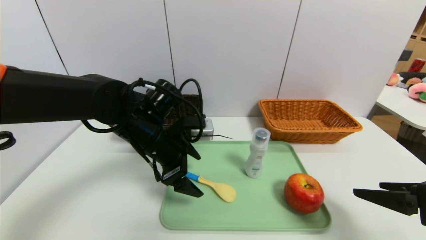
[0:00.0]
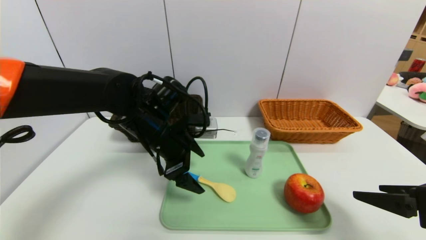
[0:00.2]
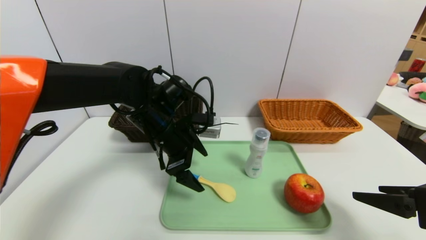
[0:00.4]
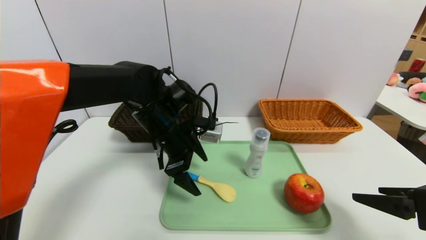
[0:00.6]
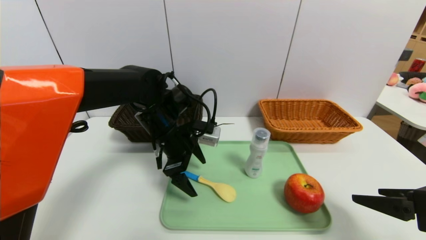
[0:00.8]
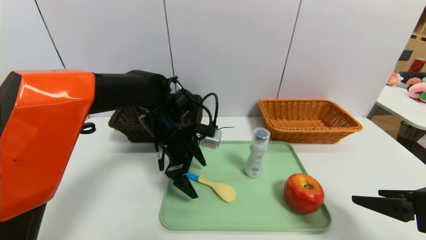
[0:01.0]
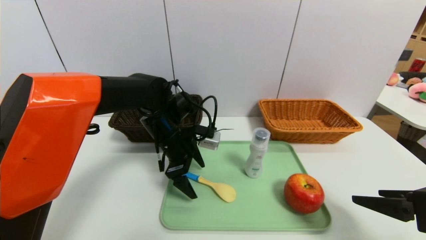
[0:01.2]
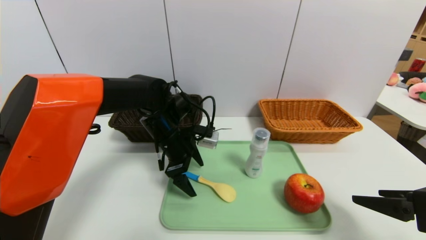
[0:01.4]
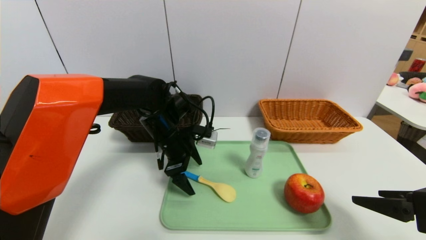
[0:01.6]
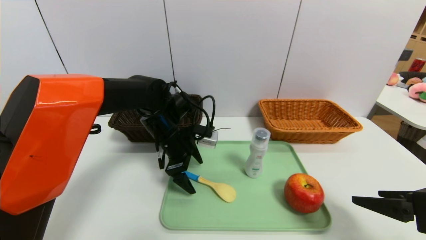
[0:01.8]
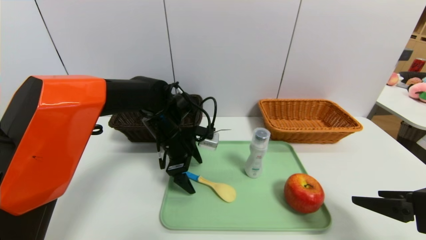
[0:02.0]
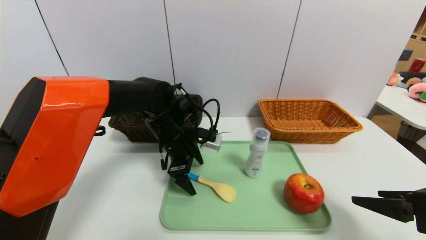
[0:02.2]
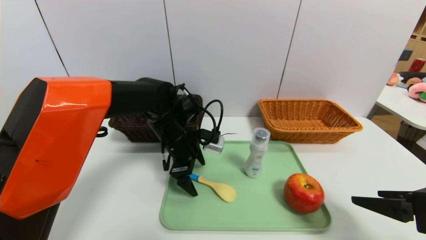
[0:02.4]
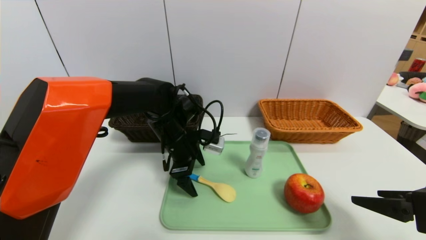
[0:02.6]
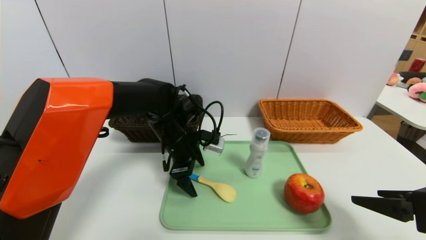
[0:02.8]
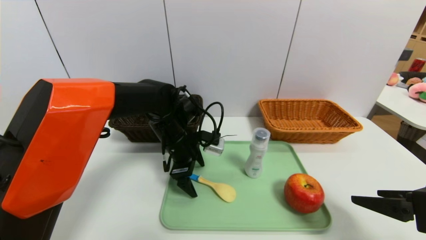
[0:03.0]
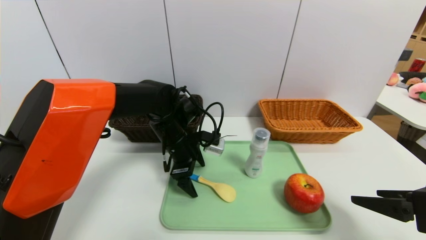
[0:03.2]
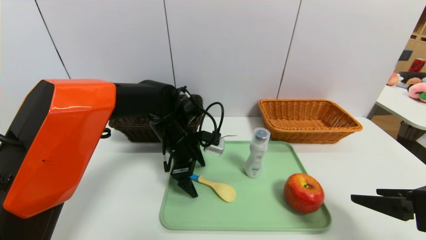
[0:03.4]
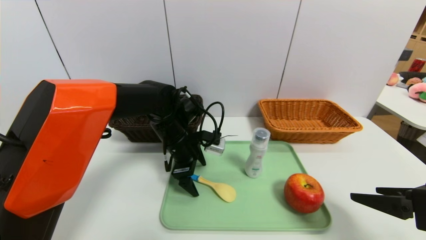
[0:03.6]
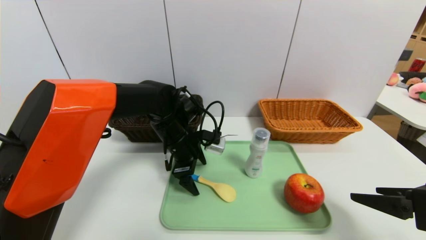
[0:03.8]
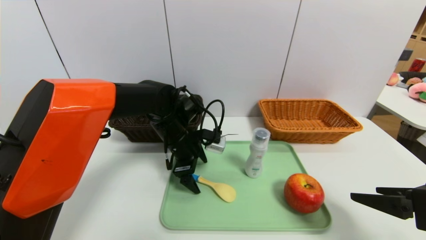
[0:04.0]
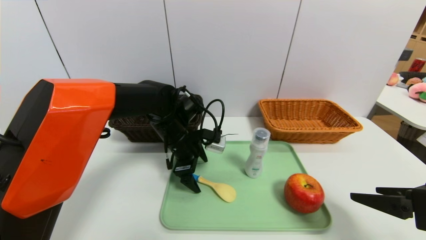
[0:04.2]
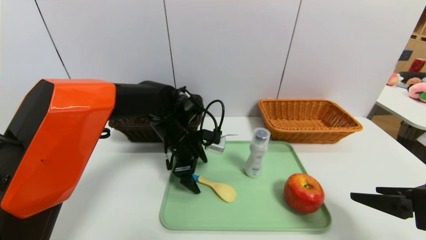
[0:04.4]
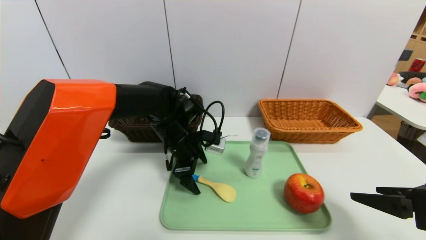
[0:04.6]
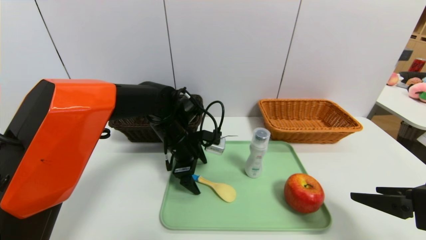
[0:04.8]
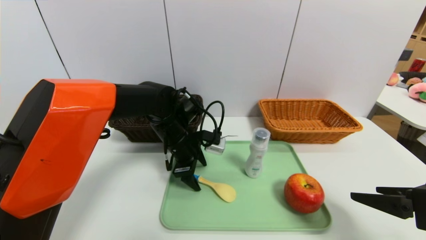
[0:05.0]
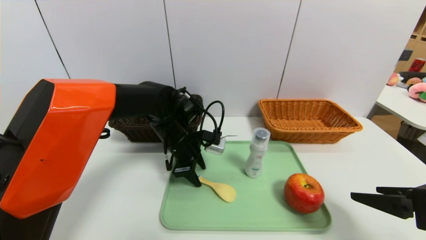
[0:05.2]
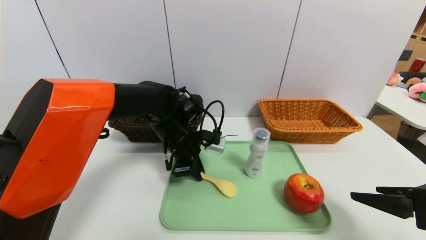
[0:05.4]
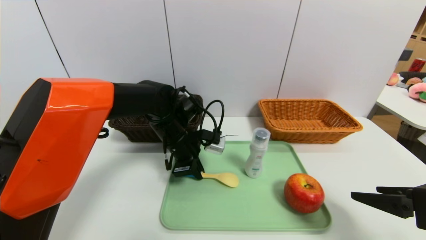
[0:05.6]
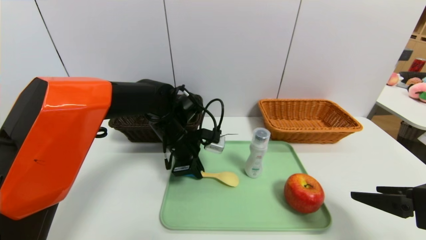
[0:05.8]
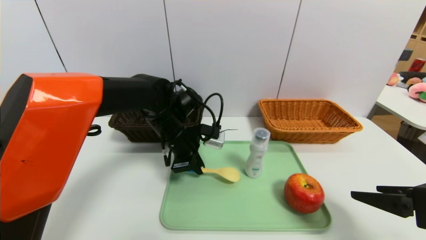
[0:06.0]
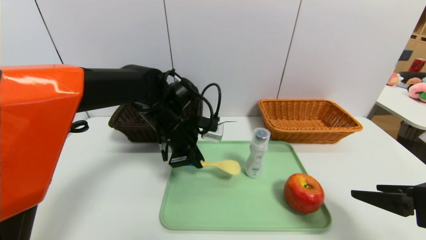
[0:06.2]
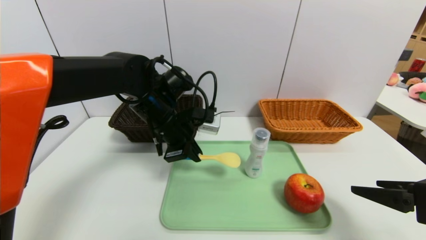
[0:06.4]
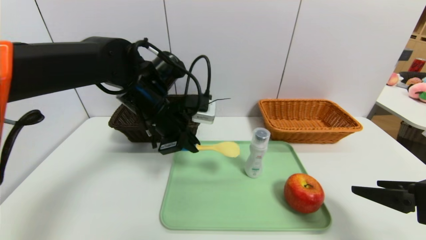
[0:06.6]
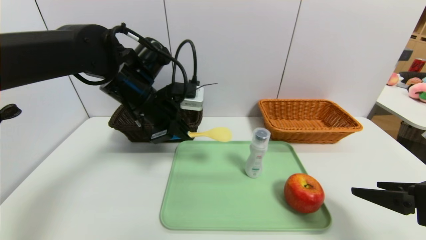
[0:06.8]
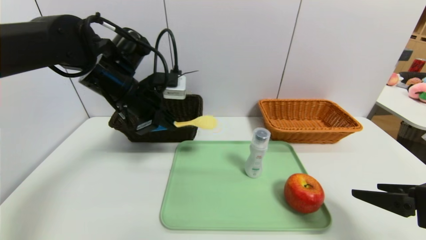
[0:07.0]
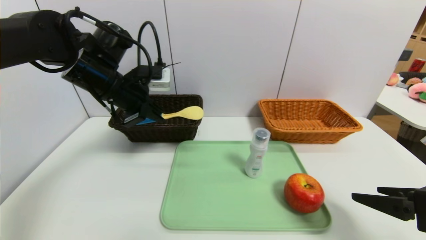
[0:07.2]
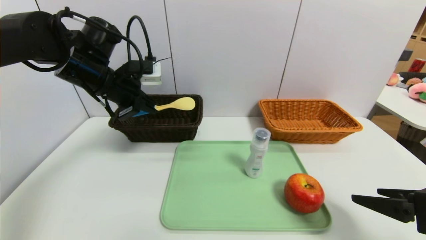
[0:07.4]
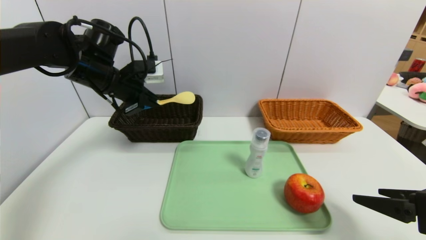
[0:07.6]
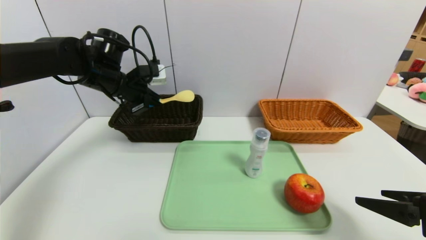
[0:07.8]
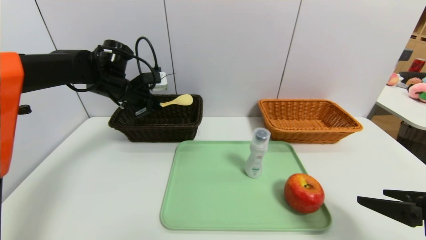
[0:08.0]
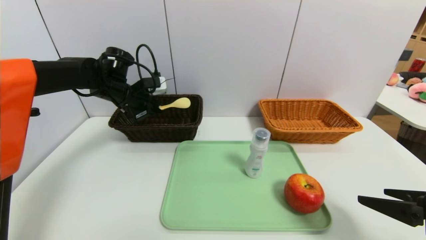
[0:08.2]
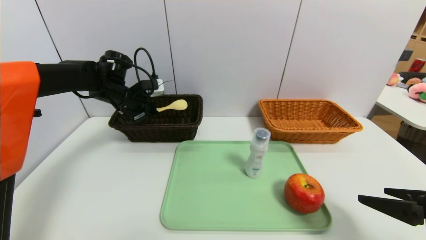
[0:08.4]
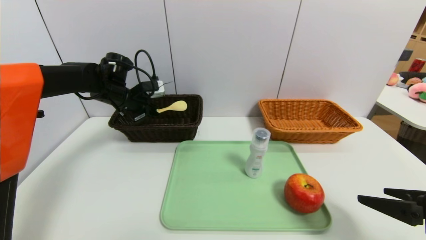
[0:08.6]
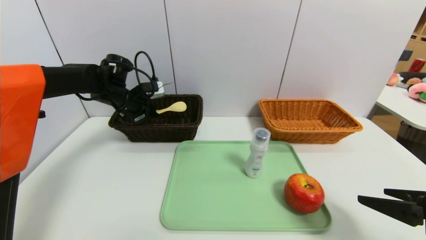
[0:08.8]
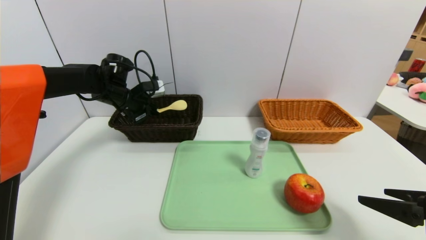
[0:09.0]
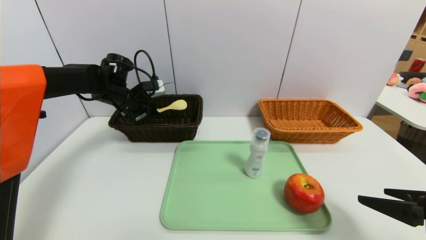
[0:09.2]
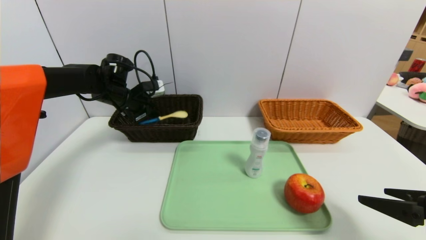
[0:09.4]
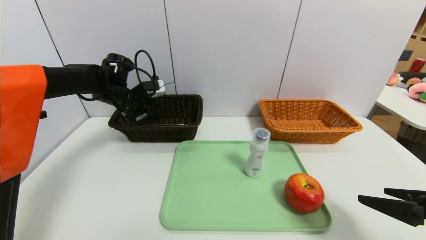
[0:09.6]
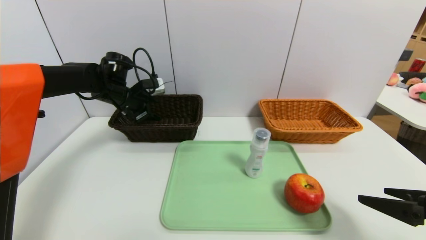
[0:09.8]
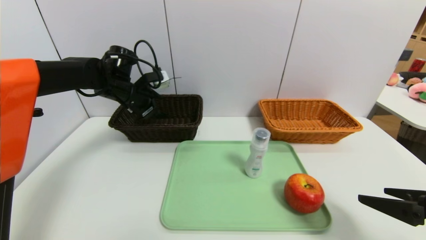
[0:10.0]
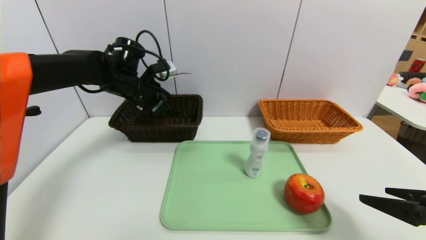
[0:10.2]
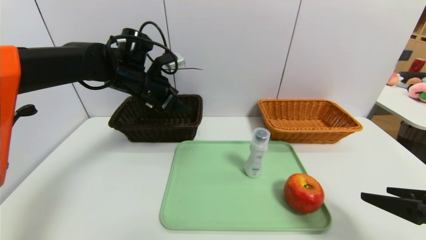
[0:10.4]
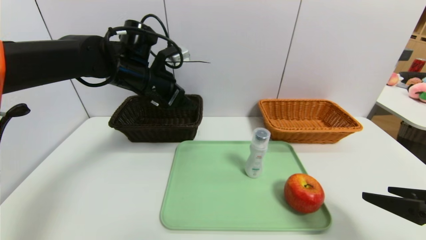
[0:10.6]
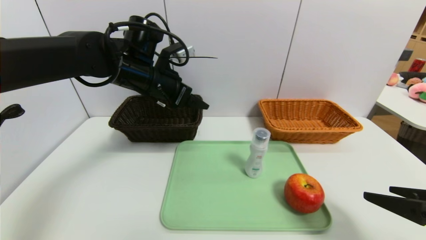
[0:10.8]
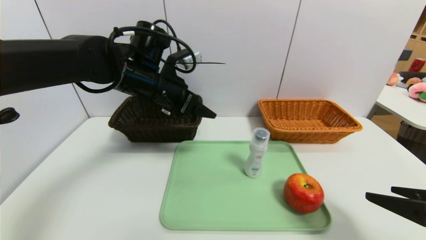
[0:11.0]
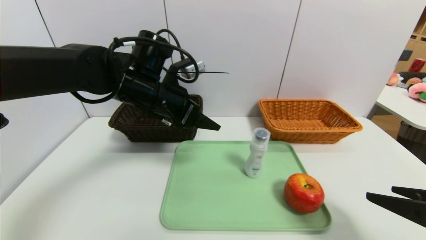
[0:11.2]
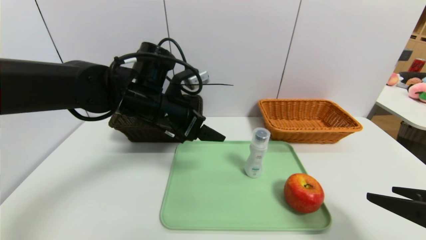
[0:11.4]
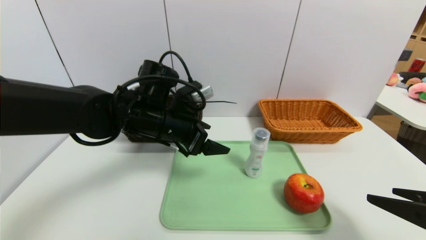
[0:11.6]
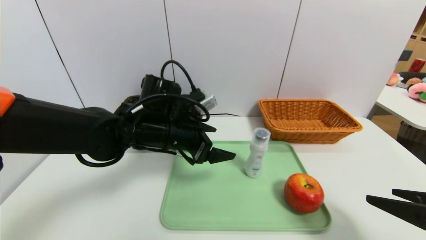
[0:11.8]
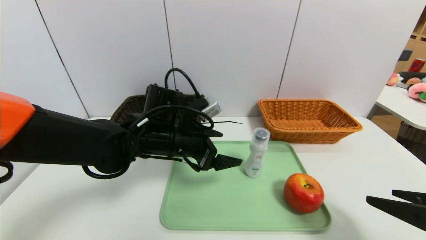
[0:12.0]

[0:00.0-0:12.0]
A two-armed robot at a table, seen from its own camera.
Task of the whole recording: place the food in the right basket with the right gripper, and place the non food items in the left basket with the left gripper.
Step, 0:00.0 to 0:09.8: Grasp the spoon and put it in the left basket.
0:00.0 to 0:01.6: The left gripper shifts approximately 5 cm forward.
0:01.6 to 0:03.0: The grippers stay close to where they were, moving slightly.
0:03.0 to 0:04.4: Both grippers stay about where they are.
0:04.4 to 0:06.0: The left gripper closes up.
0:06.0 to 0:07.6: The left gripper travels to the left and upward by about 15 cm.
0:07.6 to 0:09.0: The left gripper travels forward and downward by roughly 10 cm.
0:09.0 to 0:10.4: The left gripper goes approximately 10 cm to the right, upward and backward, and opens.
0:10.4 to 0:12.0: The left gripper is displaced backward, downward and to the right by some 15 cm.

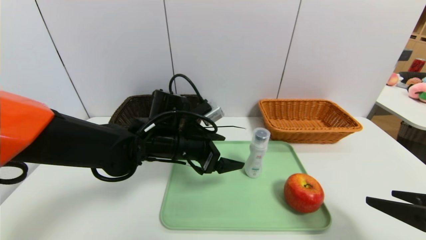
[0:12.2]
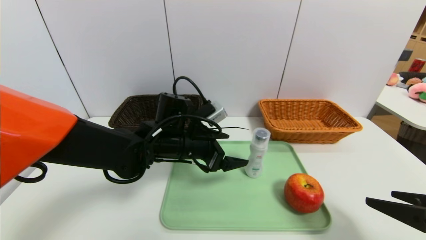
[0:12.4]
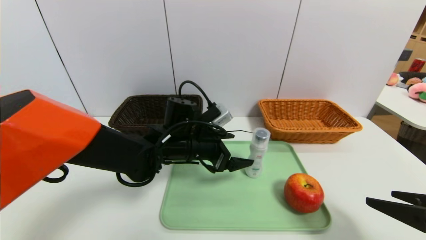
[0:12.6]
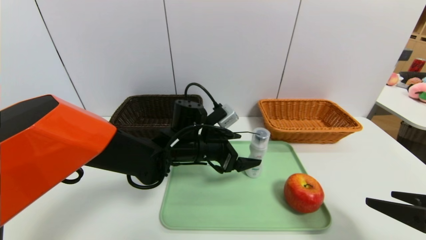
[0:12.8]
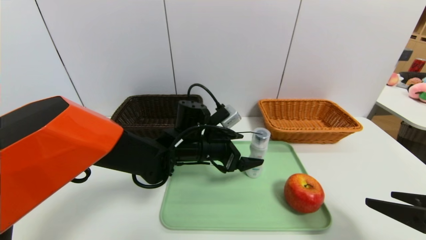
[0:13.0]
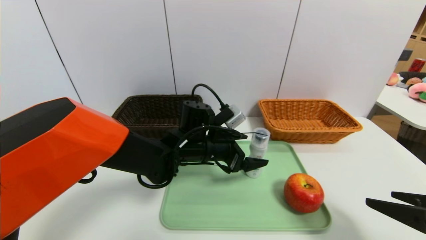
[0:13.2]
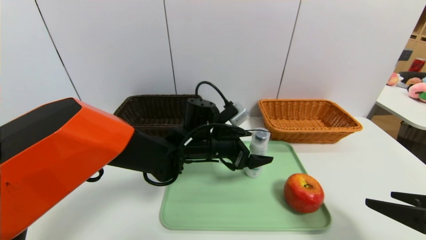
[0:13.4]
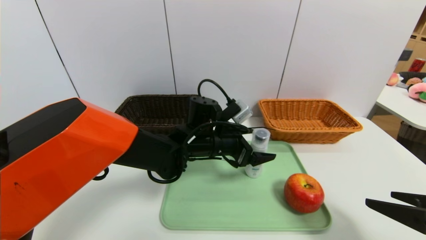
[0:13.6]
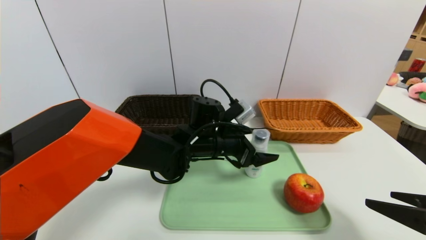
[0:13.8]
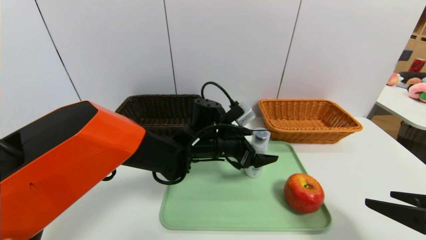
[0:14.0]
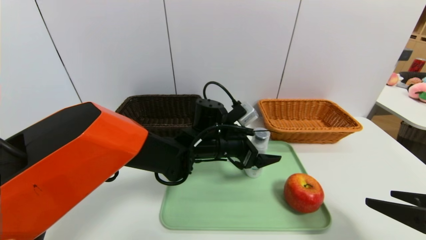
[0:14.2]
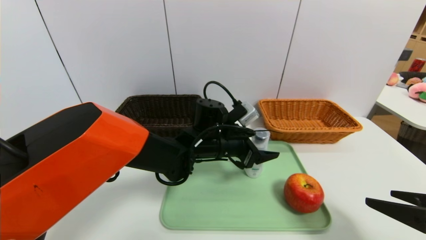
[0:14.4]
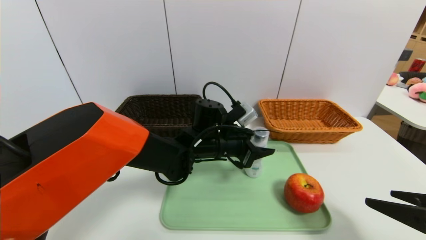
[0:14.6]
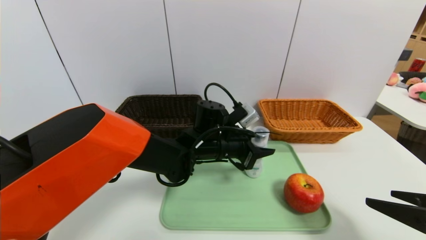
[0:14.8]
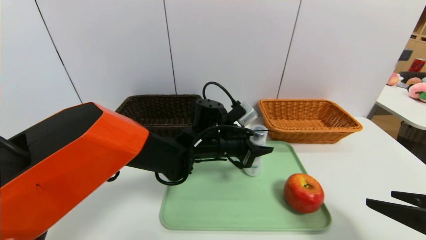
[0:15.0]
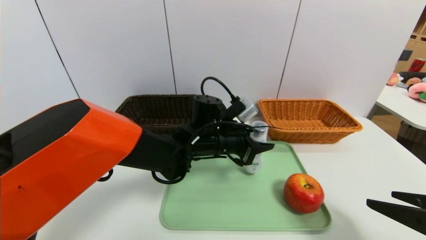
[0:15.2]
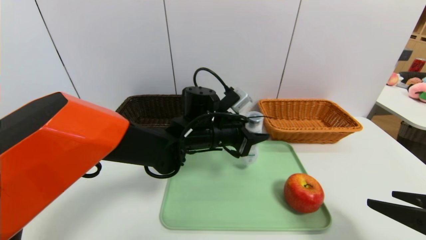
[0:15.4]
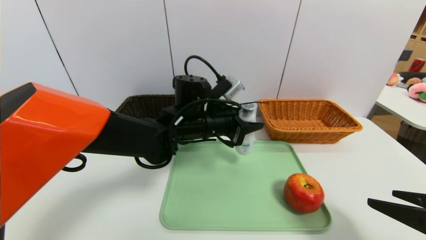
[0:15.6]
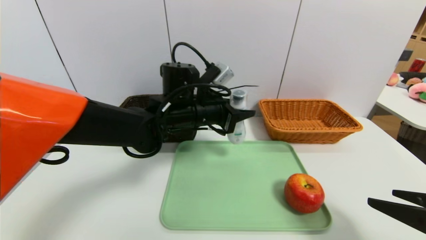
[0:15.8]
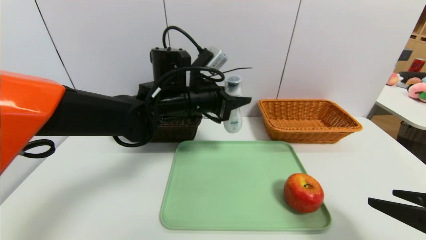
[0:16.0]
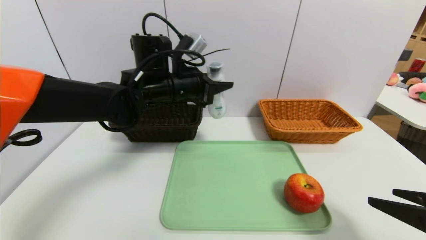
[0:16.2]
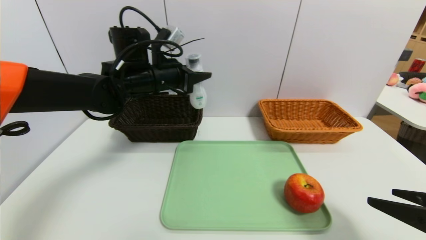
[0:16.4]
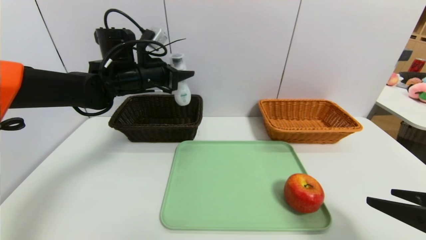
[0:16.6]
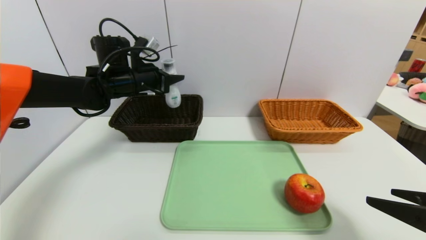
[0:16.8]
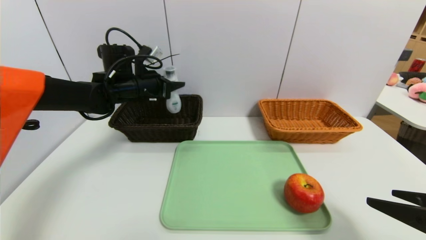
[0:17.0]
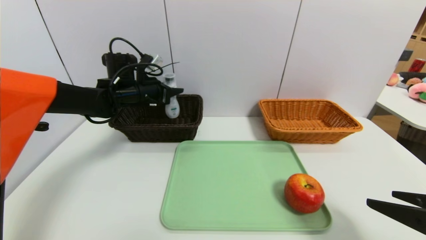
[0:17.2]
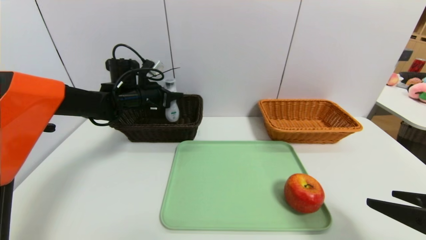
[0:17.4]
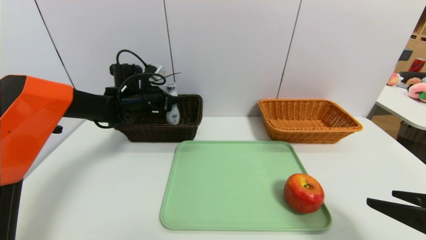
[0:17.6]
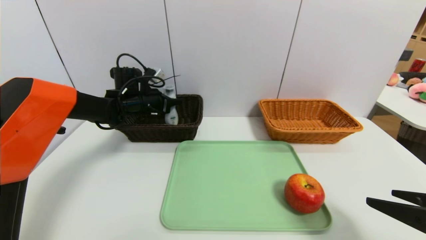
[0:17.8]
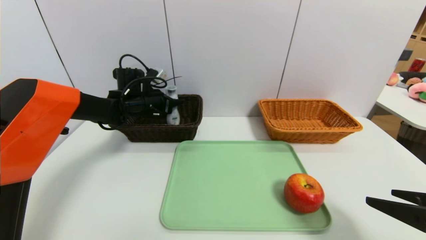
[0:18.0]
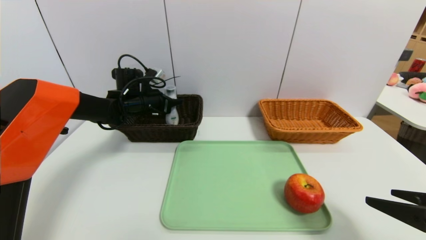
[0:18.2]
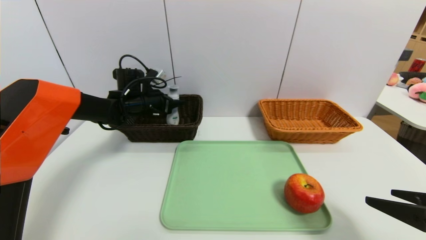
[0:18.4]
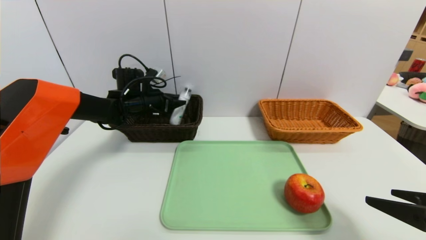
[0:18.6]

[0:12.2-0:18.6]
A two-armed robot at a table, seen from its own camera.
Task of the whole recording: place the food in the right basket with the right gripper, and place the non food items in the left basket with the left gripper.
0:12.2 to 0:13.8: The left gripper moves to the right, approximately 5 cm.
0:13.8 to 0:15.4: The left gripper closes its fingers.
0:15.4 to 0:17.0: The left gripper travels to the left and forward by some 20 cm.
0:17.0 to 0:18.6: The left gripper goes some 5 cm downward.
